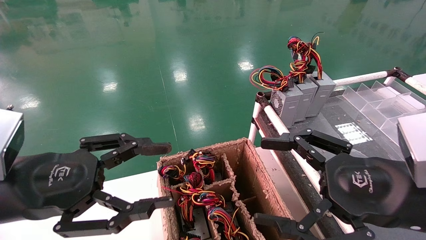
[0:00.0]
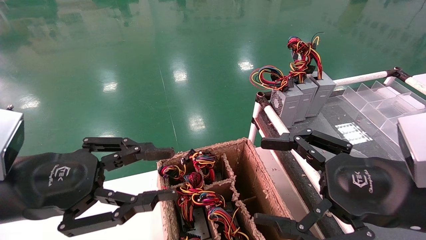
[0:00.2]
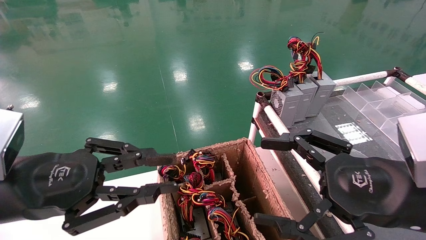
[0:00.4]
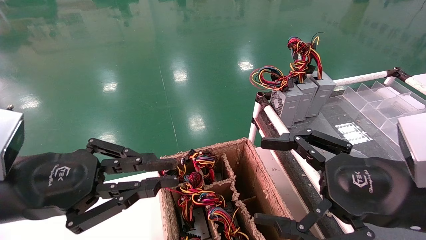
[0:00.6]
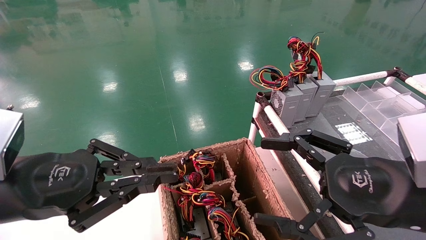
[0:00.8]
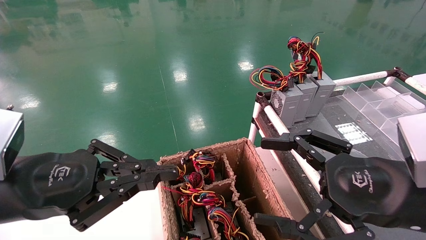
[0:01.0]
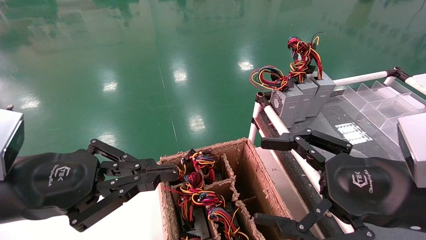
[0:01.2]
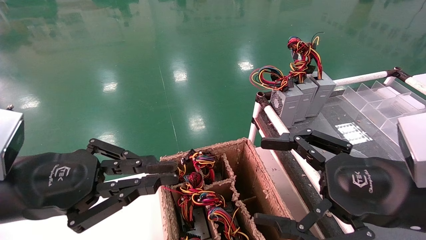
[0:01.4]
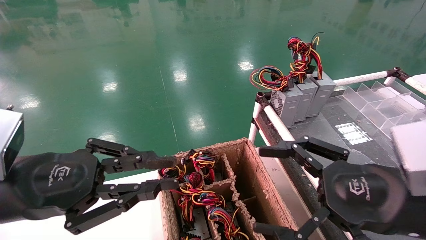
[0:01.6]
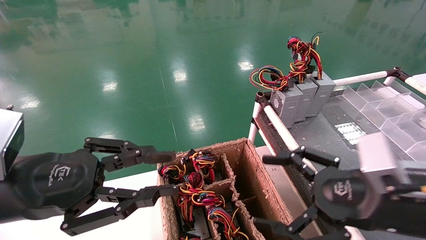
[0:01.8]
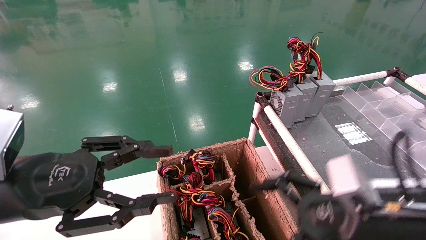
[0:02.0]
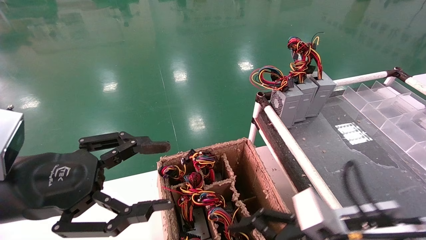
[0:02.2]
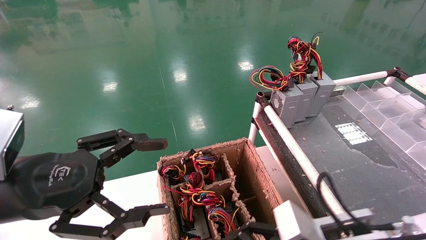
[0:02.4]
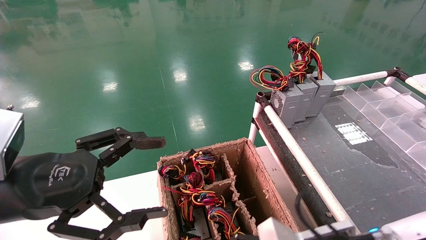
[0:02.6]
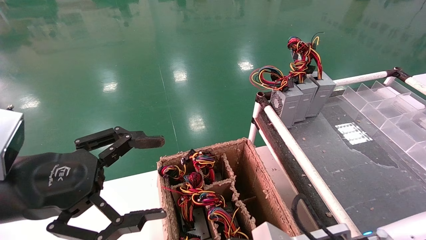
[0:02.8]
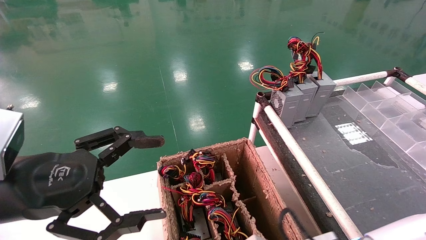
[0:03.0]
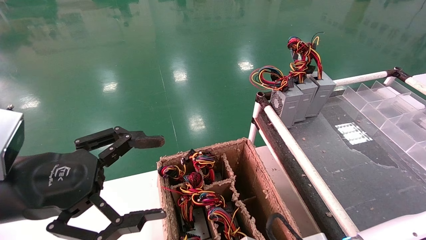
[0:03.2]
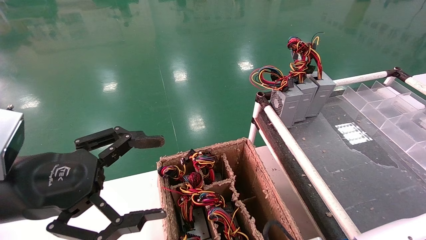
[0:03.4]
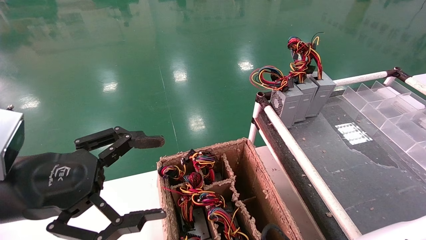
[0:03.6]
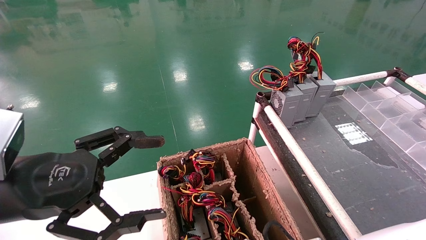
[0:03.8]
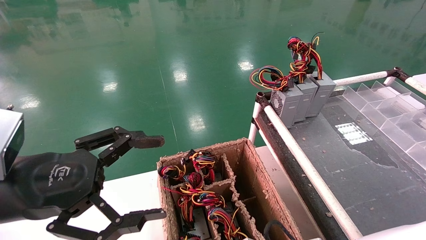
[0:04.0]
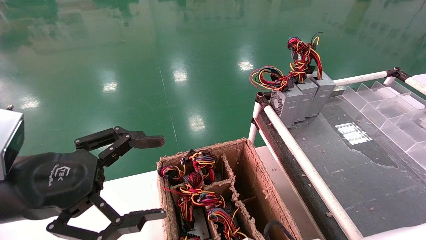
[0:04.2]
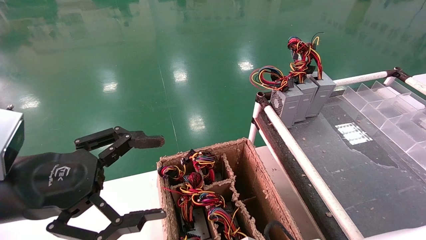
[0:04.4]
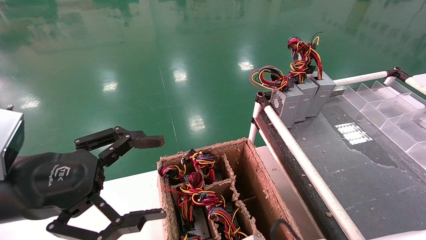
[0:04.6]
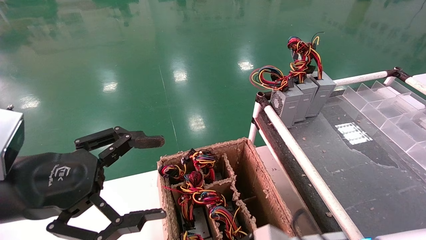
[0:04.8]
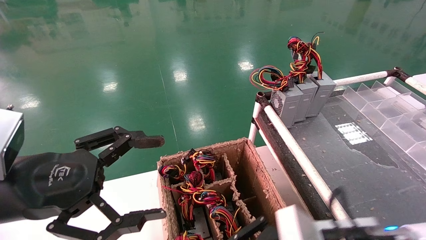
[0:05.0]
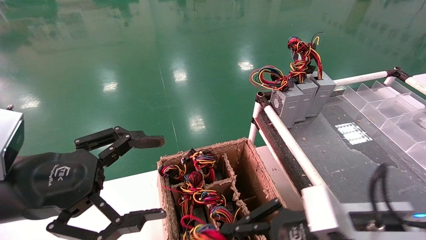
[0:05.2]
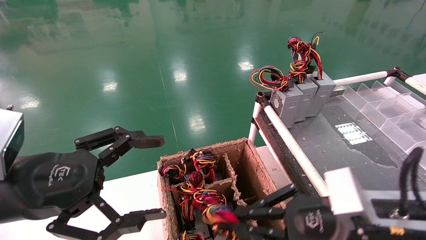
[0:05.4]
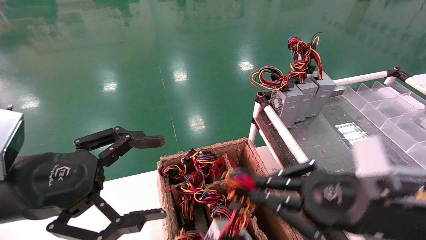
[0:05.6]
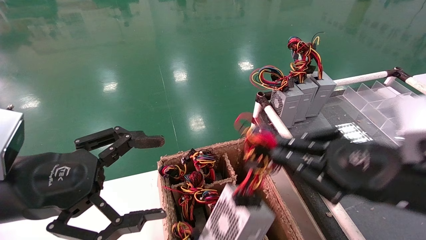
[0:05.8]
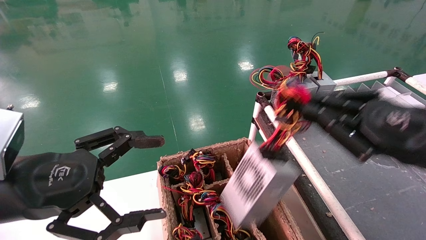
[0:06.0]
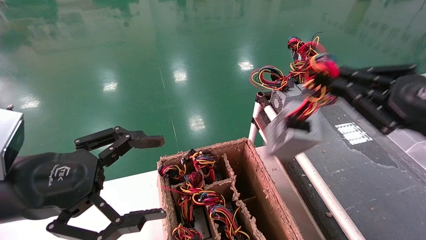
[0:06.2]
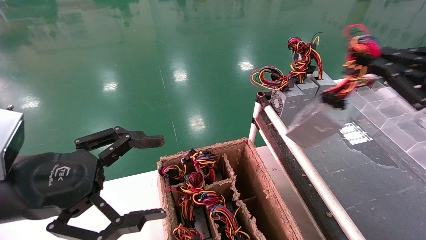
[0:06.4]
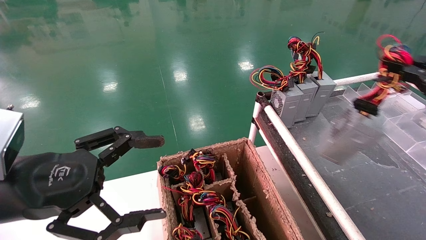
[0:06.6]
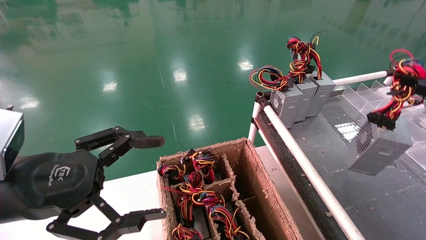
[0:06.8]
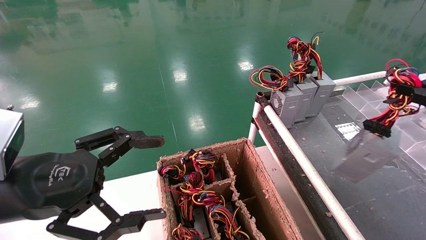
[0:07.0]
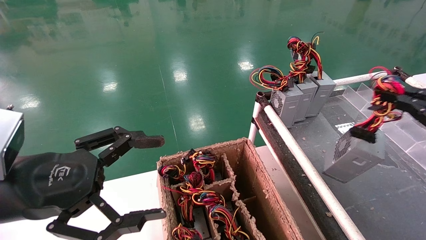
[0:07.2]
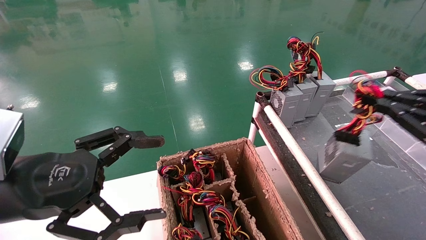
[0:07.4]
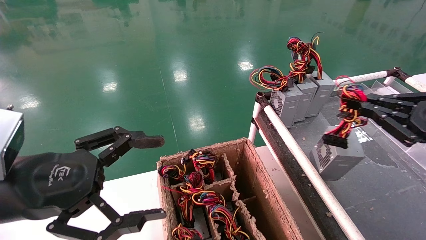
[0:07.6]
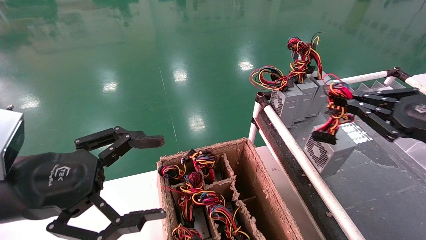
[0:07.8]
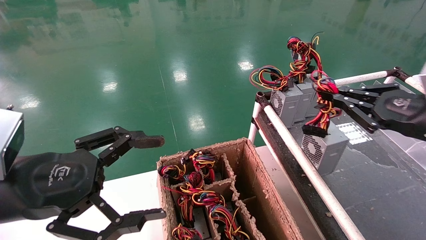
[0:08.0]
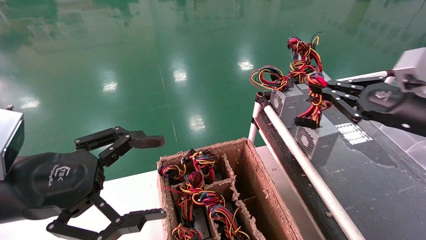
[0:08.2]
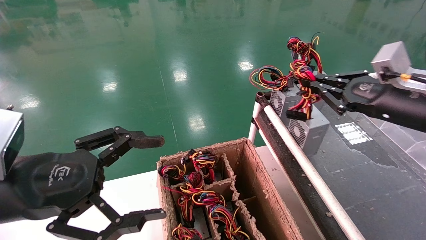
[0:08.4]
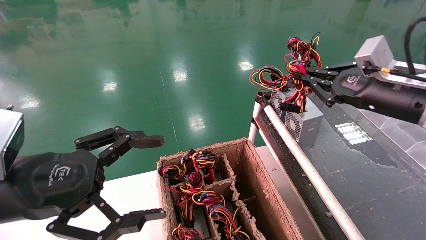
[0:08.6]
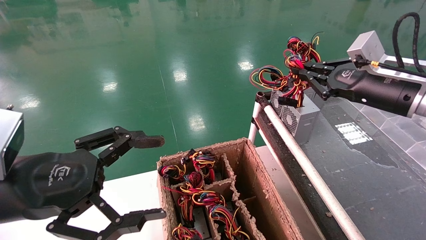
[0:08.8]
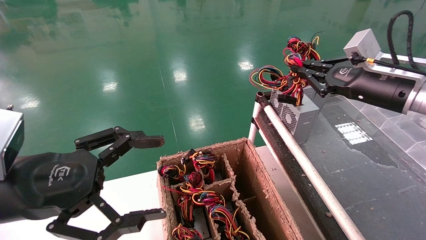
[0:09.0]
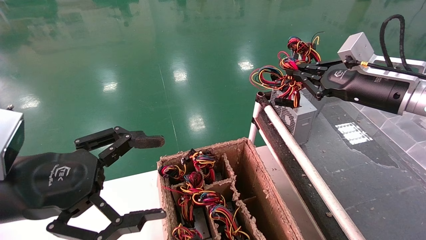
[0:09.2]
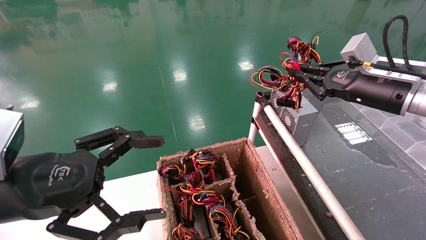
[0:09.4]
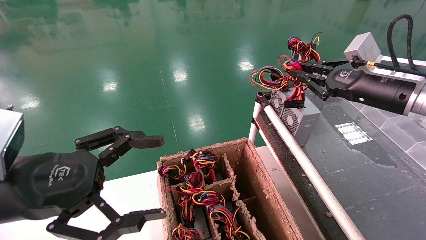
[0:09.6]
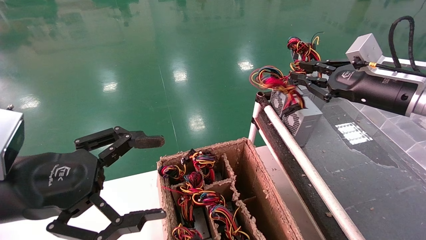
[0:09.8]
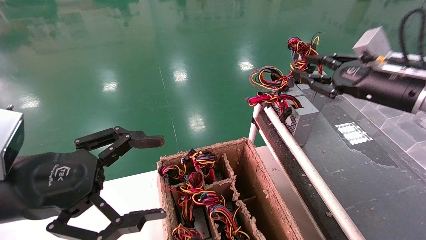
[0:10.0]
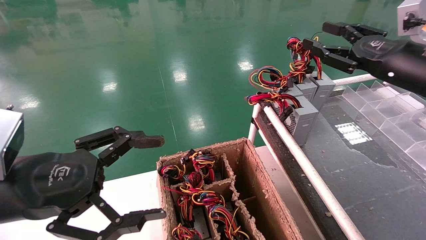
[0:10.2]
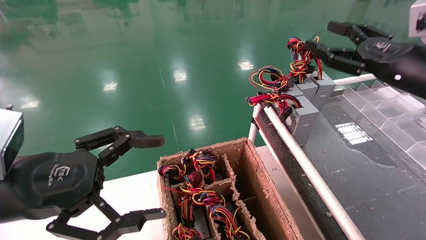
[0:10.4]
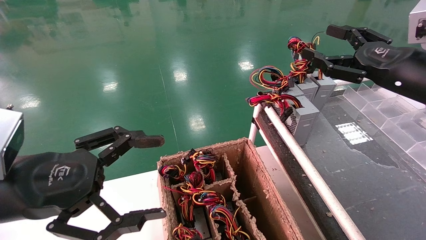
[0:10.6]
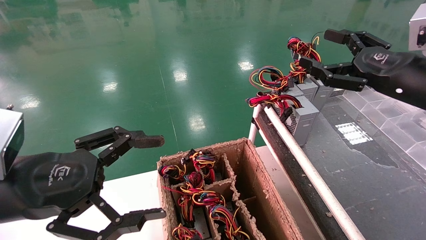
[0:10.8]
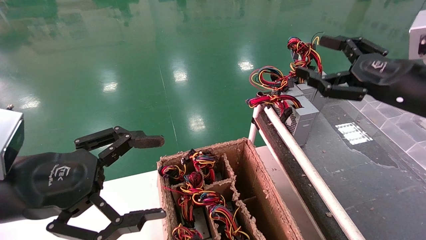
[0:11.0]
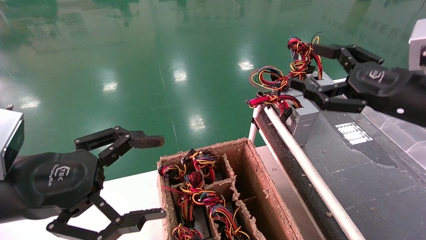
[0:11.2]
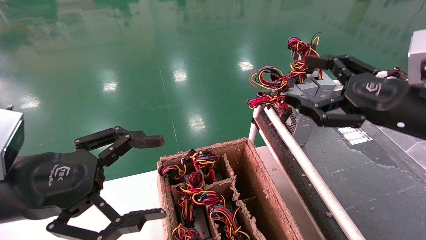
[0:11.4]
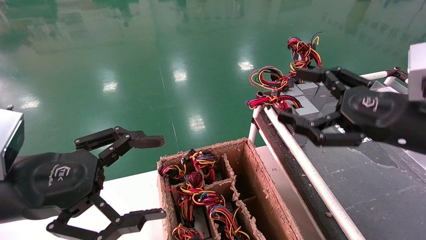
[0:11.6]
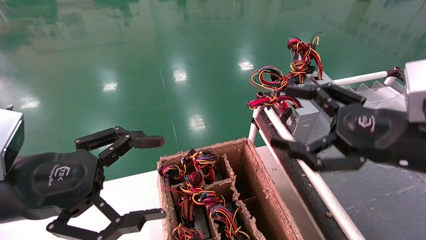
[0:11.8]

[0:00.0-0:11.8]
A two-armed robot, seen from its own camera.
Step, 0:01.0 to 0:04.2: Grab and lift the power supply from the large box.
Step, 0:04.4 to 0:09.6: Place the power supply on the operating table.
0:00.0 to 0:01.4: The left gripper closes.
0:01.4 to 0:03.0: The left gripper opens its fingers; the right gripper travels downward and to the left by approximately 15 cm.
0:03.0 to 0:04.4: The right gripper closes its fingers.
0:04.4 to 0:06.0: The right gripper moves upward and to the right, approximately 25 cm.
0:06.0 to 0:07.4: The right gripper shifts roughly 10 cm to the right.
0:07.4 to 0:08.8: The right gripper is displaced forward and to the left by roughly 15 cm.
0:08.8 to 0:10.4: The right gripper opens up.
0:10.4 to 0:11.8: The right gripper shifts approximately 15 cm backward, downward and to the left, and opens up.
